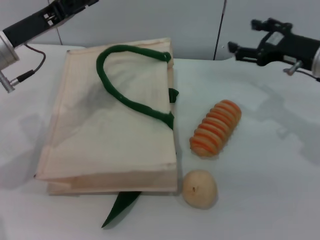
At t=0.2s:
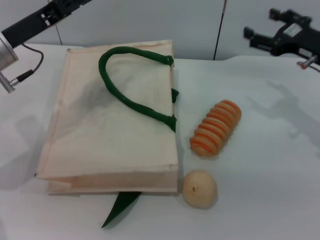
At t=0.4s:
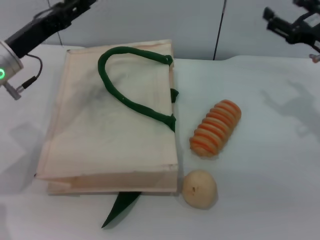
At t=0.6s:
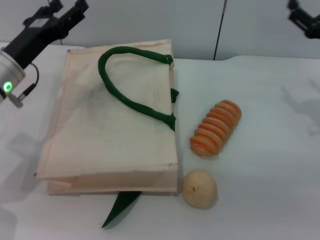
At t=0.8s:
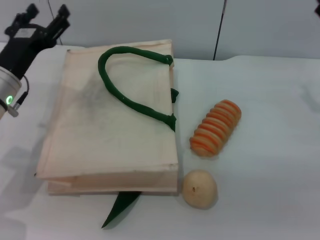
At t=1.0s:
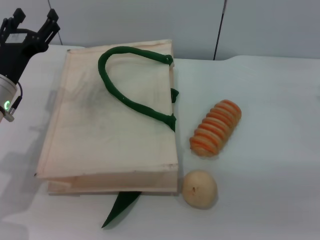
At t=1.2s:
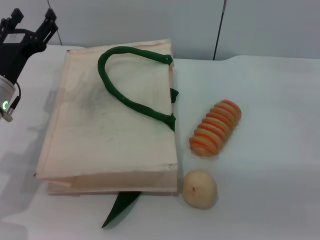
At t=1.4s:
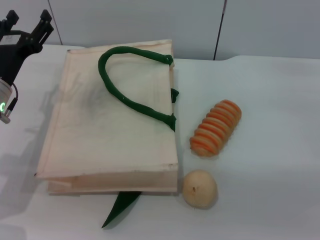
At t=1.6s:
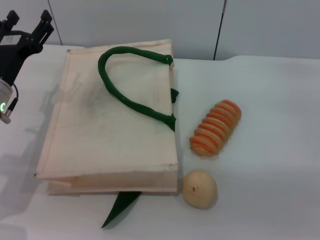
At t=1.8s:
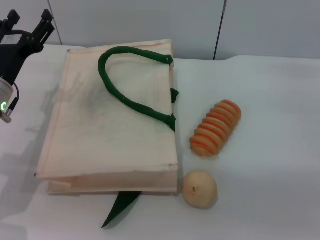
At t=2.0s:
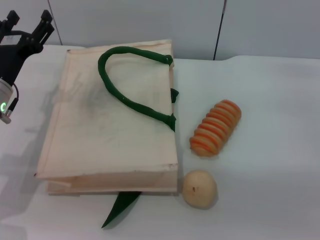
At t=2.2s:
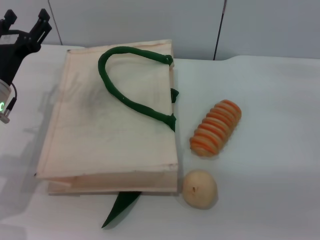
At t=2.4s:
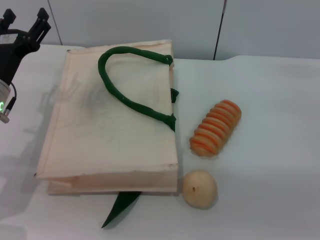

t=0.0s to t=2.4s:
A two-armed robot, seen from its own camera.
Task of the whole recording: pick up the orange and peach from the table and place it in the white handbag.
t=0.0s to t=1.2s: The right gripper travels to the right and backward by some 10 cm, while the left gripper shifts approximately 10 cm downward, and opens up.
t=1.2s to t=2.4s: Neither gripper changes place.
